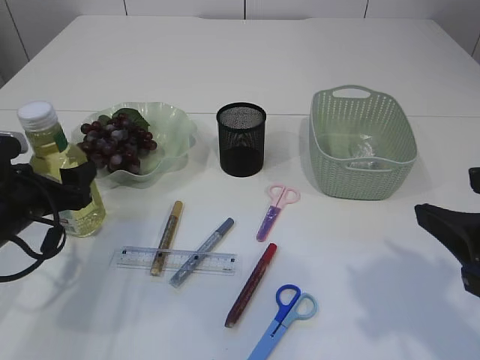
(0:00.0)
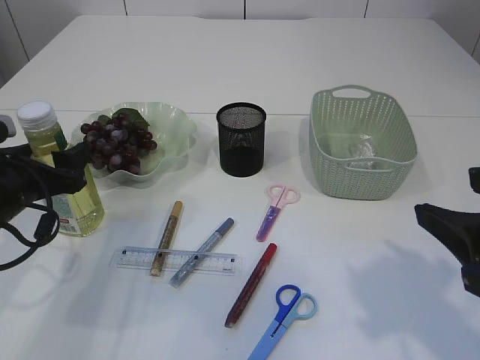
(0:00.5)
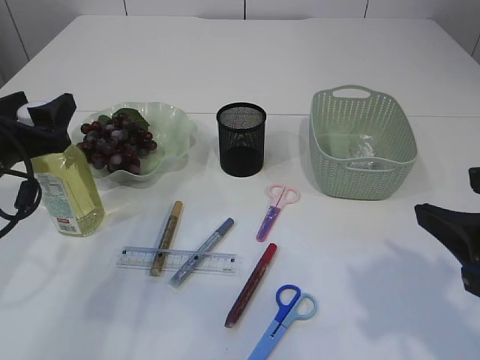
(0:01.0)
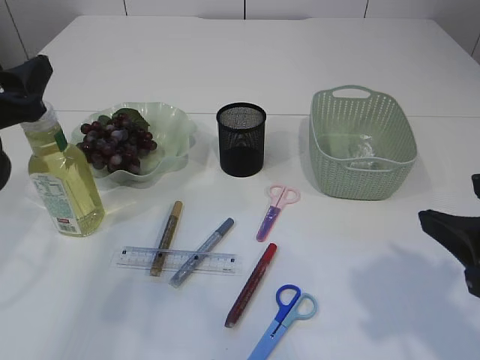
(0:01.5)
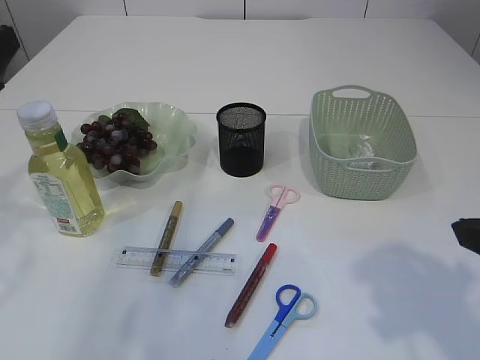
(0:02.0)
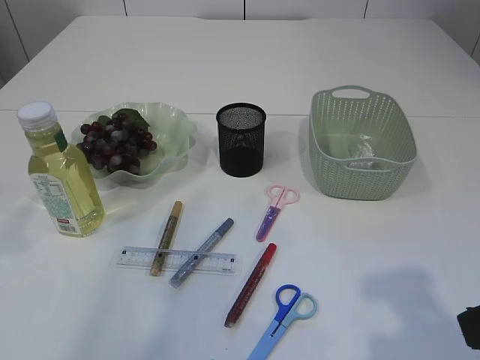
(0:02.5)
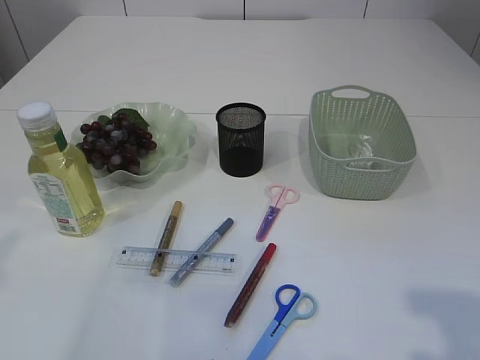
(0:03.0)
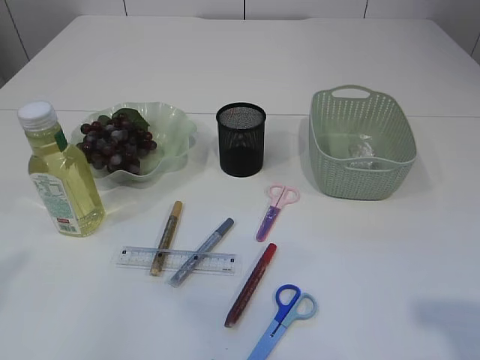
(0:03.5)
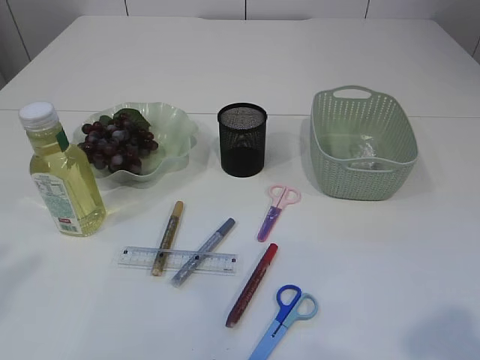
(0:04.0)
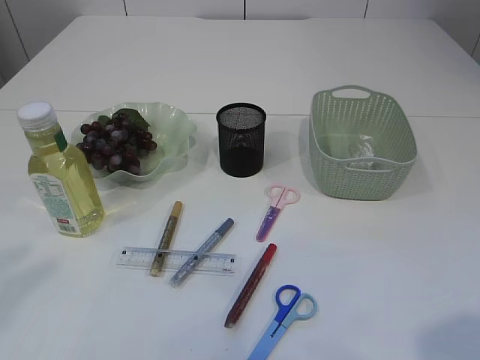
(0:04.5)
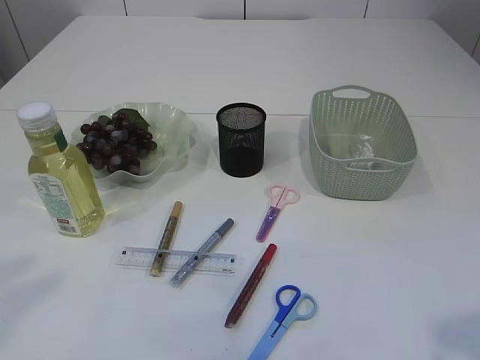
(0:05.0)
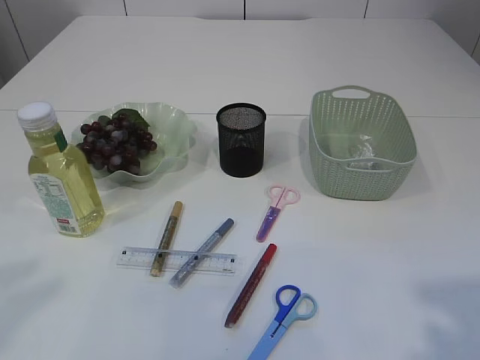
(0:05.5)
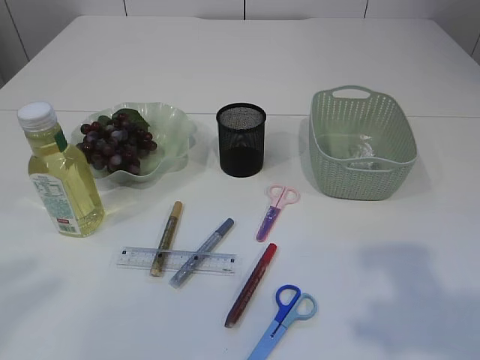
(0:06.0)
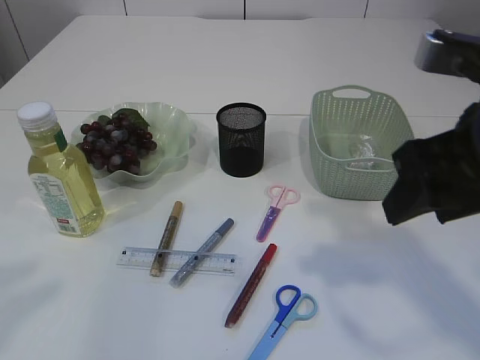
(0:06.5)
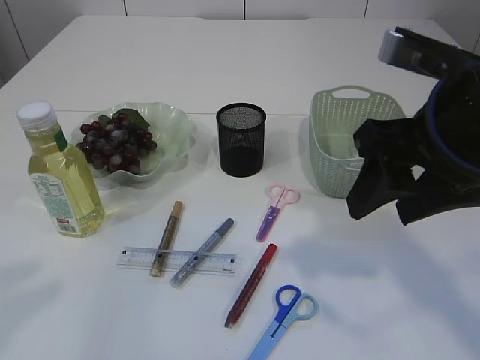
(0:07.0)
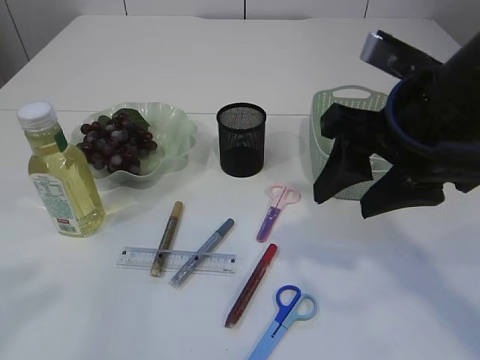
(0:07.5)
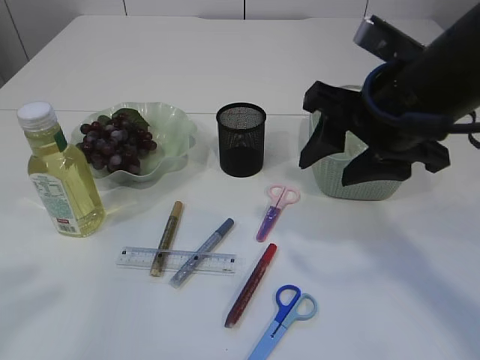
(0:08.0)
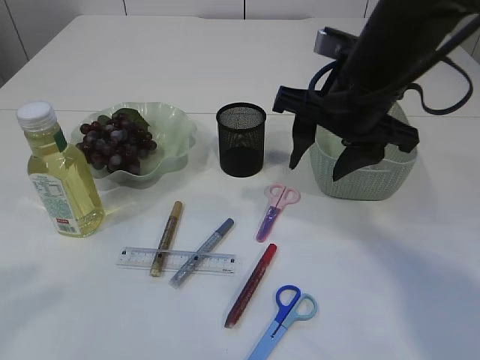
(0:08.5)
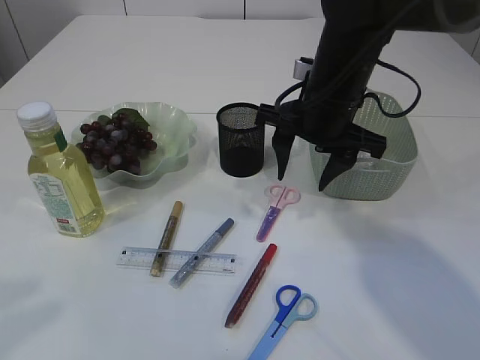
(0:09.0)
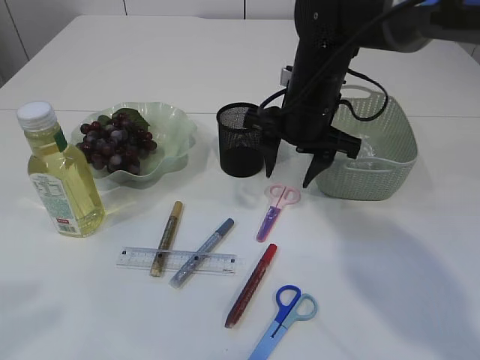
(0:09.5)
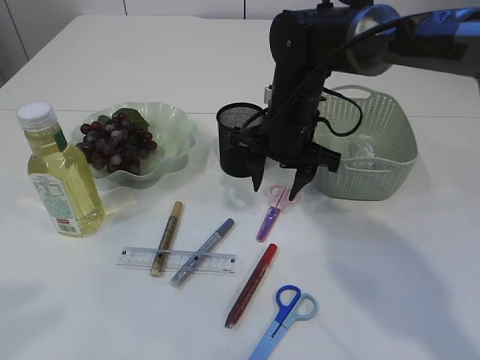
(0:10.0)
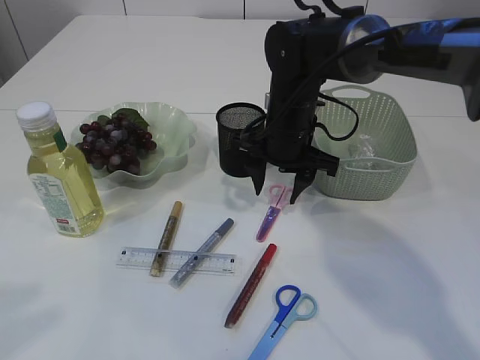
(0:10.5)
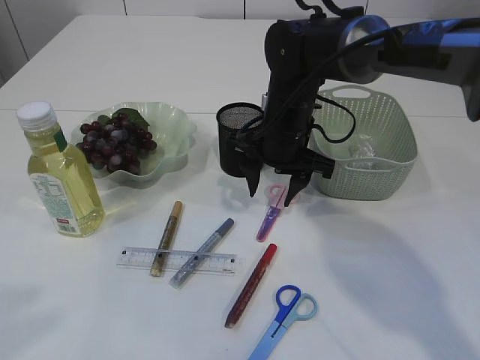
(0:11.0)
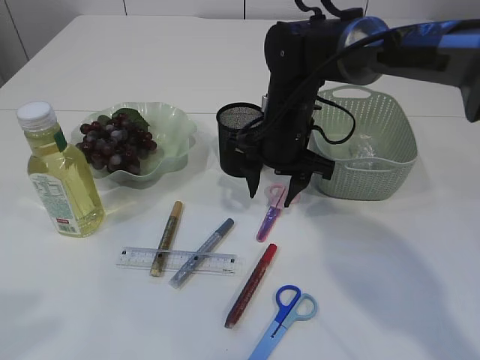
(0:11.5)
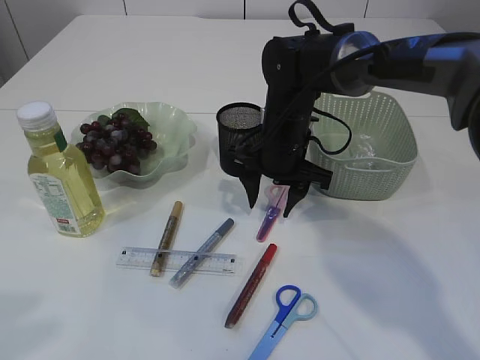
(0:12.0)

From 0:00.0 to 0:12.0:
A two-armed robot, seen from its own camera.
From 0:00.0 to 0:02.0: The left gripper moves upward, approximately 15 cm.
From 0:02.0 to 0:04.0: The left gripper travels backward and upward by about 15 cm. Meanwhile the right gripper moves backward, roughly 10 cm.
From 0:04.0 to 0:06.0: The right gripper goes approximately 5 cm forward.
From 0:06.0 to 0:08.0: The right gripper heads forward and to the left, covering about 20 cm.
From 0:08.0 to 0:10.0: The right gripper shifts roughly 20 cm forward, downward and to the left.
From 0:10.0 to 0:12.0: The grippers move only a little.

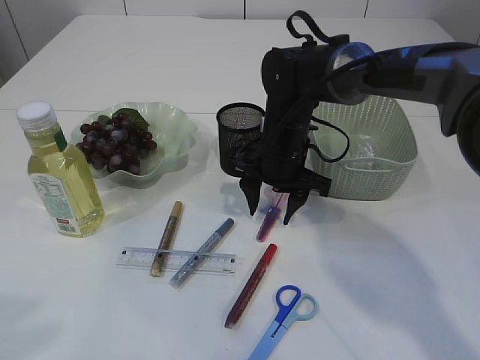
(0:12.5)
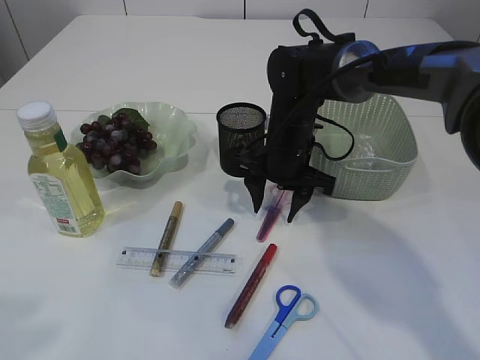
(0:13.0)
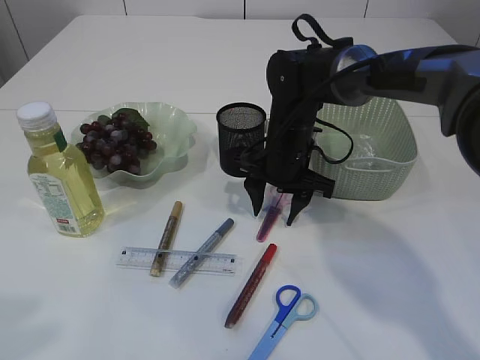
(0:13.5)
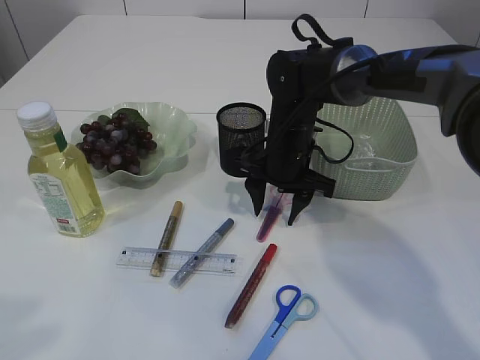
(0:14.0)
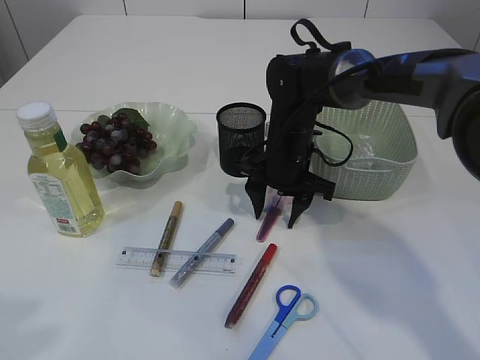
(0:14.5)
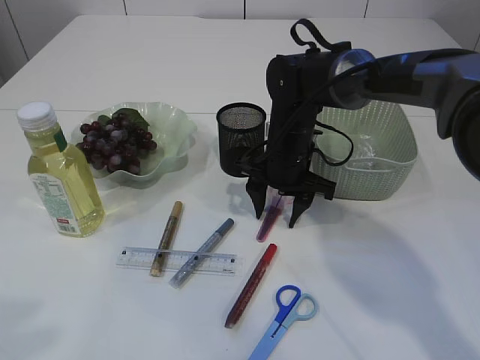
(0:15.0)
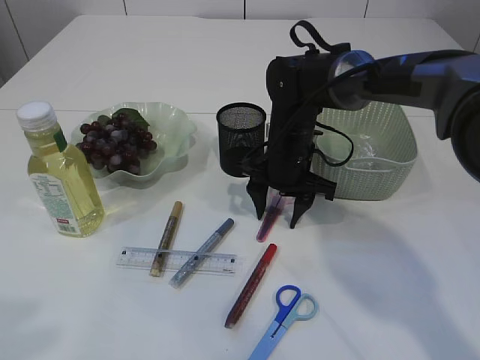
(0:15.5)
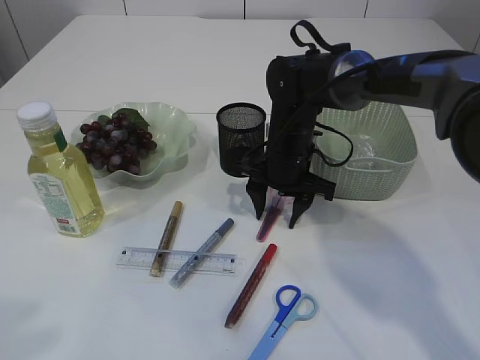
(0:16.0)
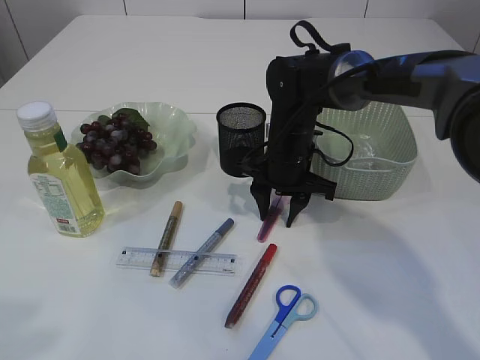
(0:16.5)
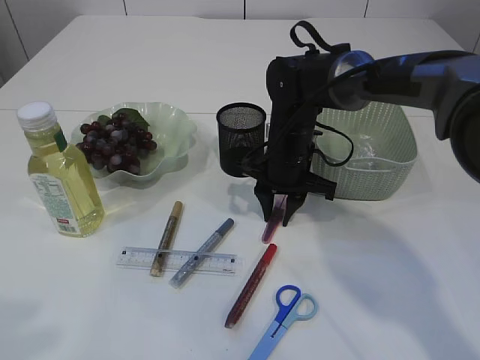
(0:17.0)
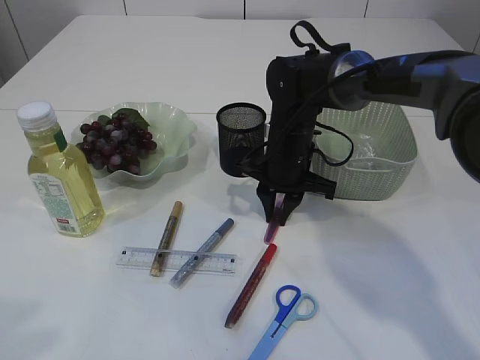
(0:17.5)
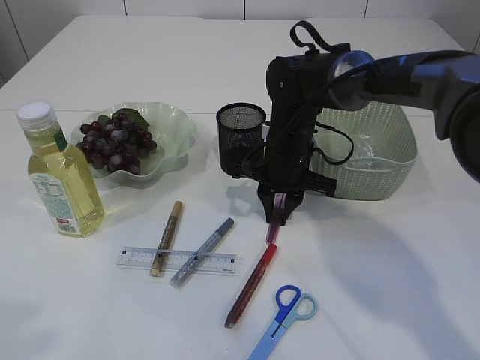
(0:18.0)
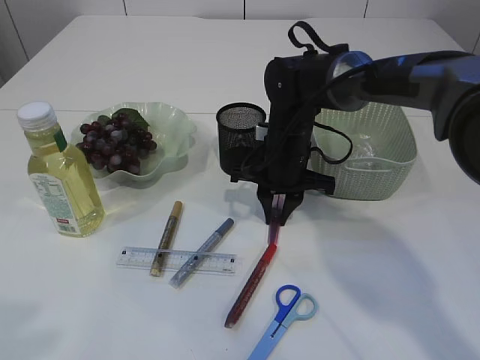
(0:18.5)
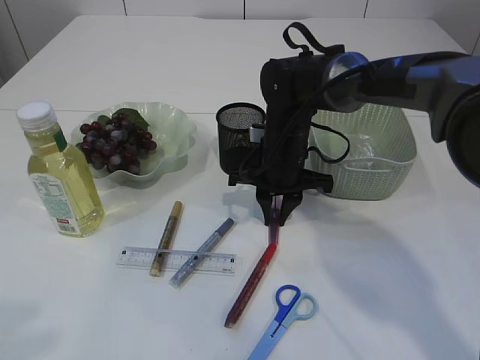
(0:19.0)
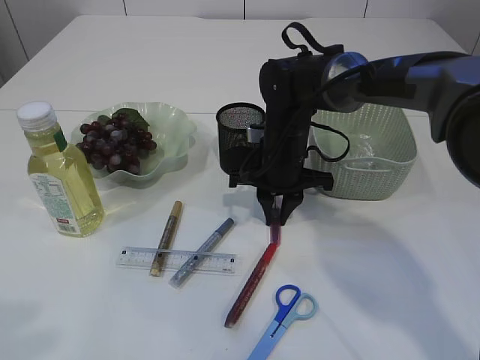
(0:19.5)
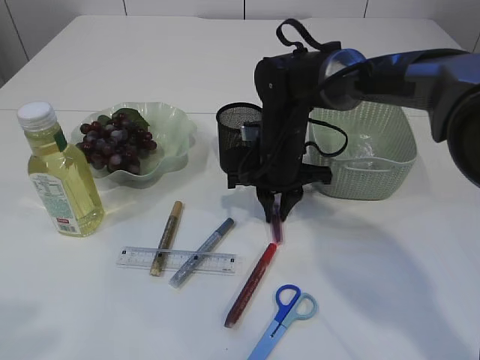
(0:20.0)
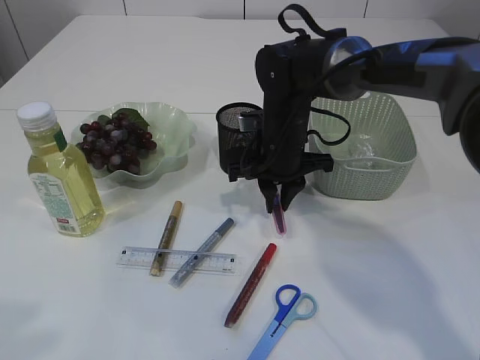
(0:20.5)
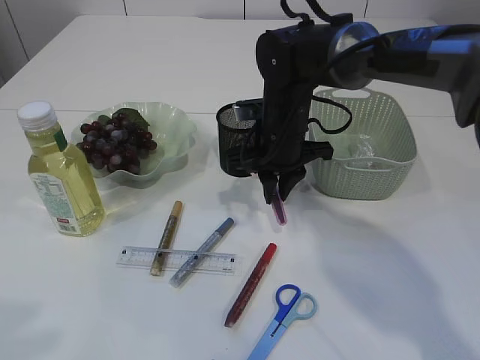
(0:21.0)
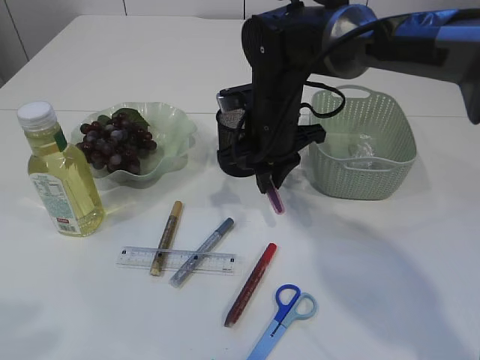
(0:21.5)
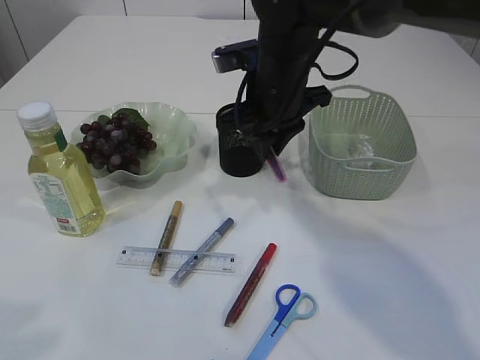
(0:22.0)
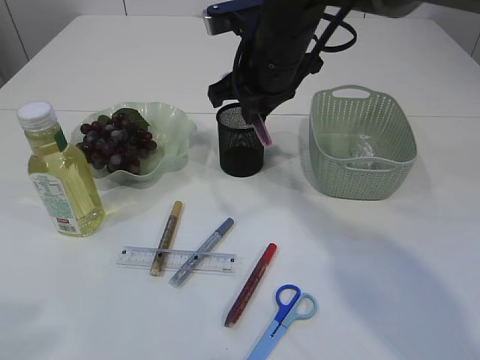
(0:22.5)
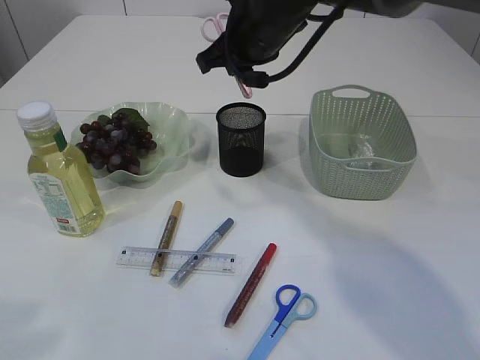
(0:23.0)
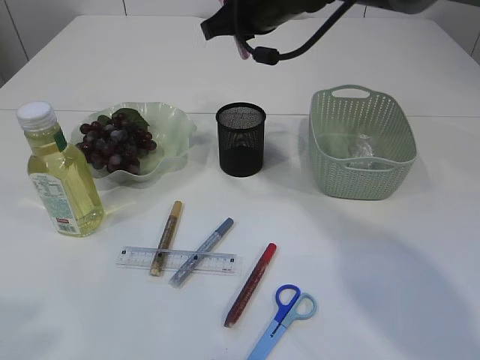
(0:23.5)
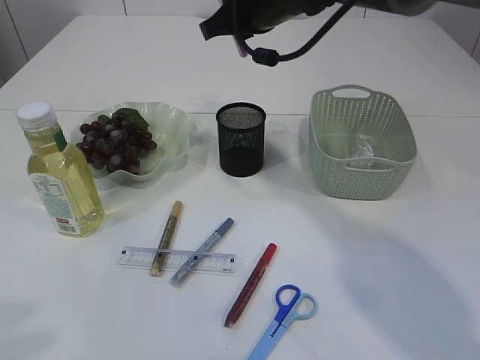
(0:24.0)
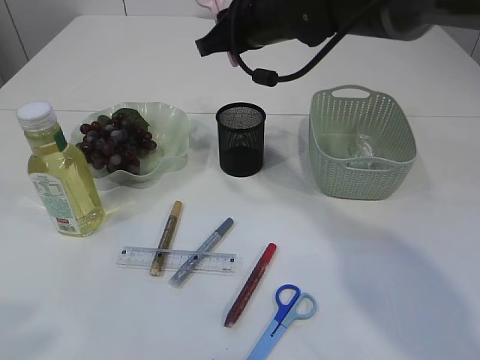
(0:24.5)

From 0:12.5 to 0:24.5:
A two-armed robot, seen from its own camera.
Step, from 0:12.5 to 0:21.0: pick up the pink scissors.
From 0:12.5 to 0:14.5: Both grippers stay put.
From 0:14.5 to 0:16.5: Both grippers stay about where they are.
From 0:16.5 to 0:18.5: The right gripper closes.
From 0:18.5 to 0:20.5: The grippers make only small movements.
From 0:20.5 to 0:22.5: The right gripper travels upward by about 10 cm.

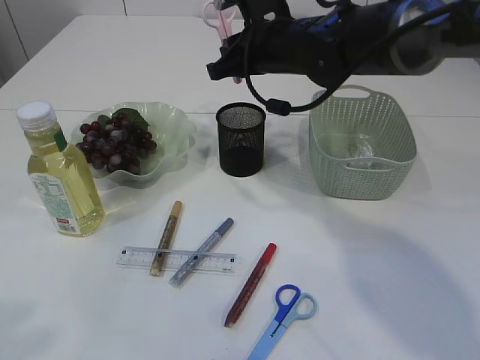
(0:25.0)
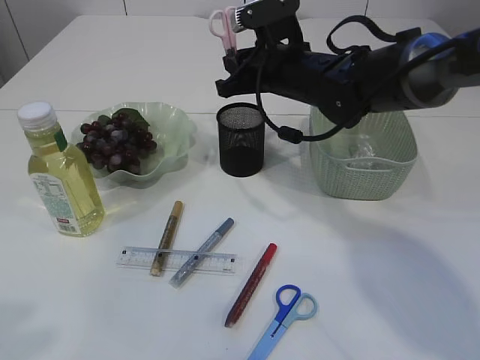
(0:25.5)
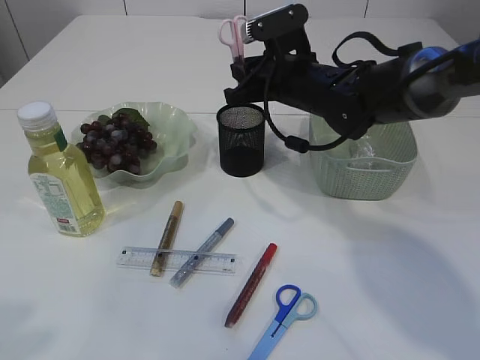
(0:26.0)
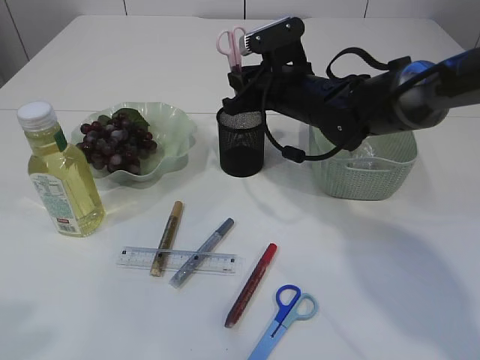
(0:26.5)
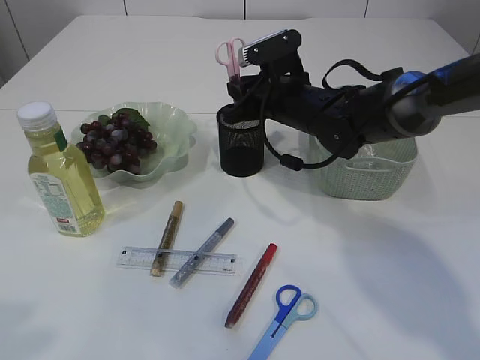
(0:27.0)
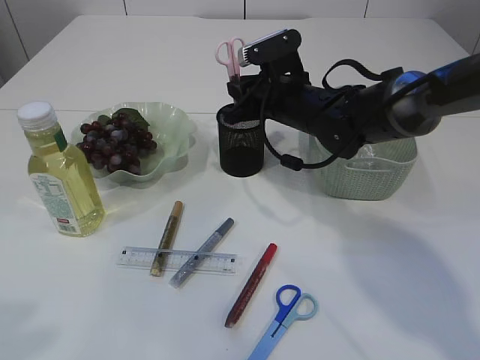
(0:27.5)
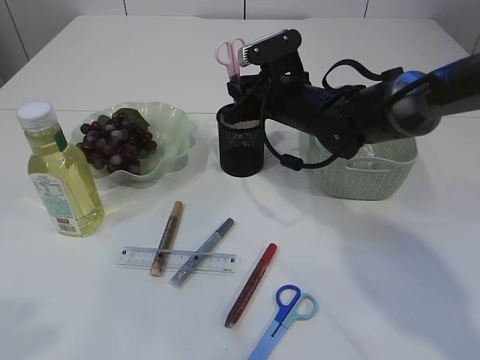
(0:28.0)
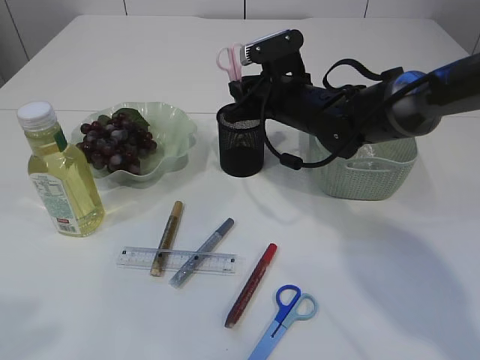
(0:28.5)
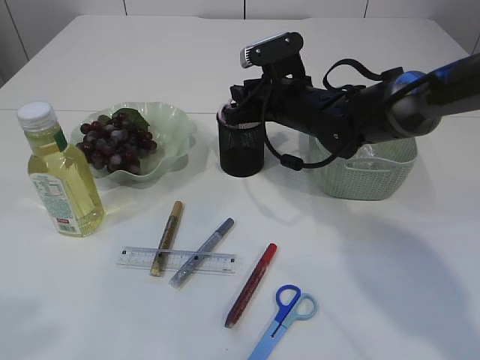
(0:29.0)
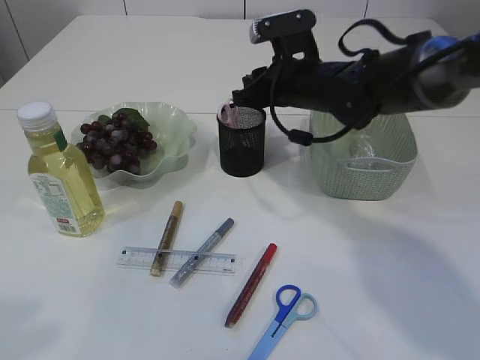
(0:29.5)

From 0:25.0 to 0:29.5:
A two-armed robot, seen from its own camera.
From 0:25.0 to 0:27.0: The right gripper travels downward by some 5 cm.
From 0:27.0 to 0:29.5: The grippers move only a little.
